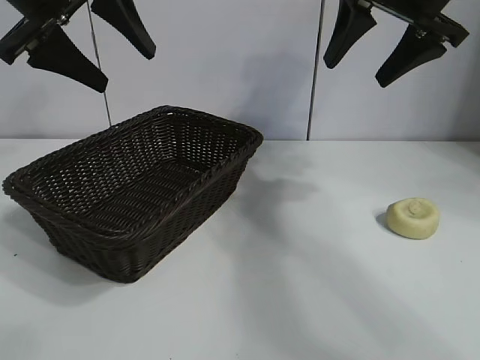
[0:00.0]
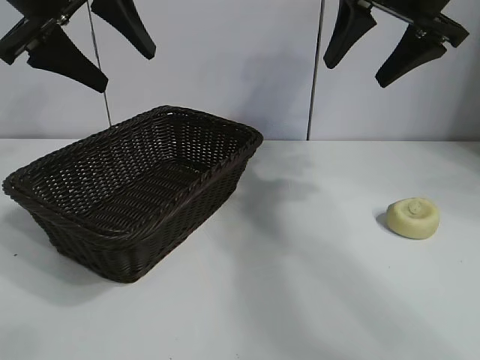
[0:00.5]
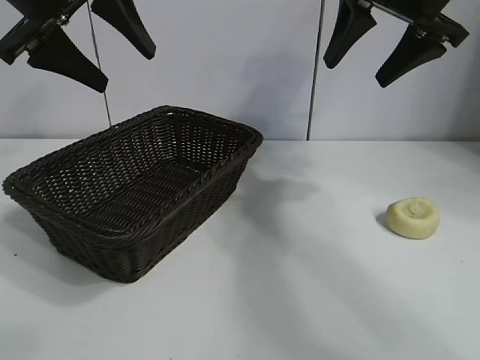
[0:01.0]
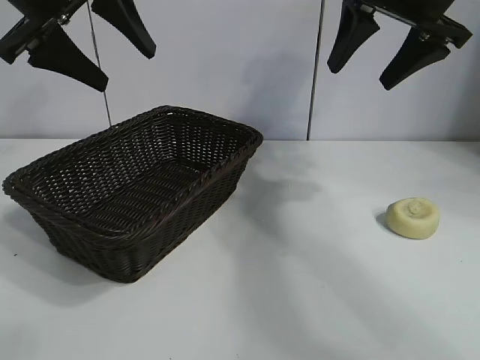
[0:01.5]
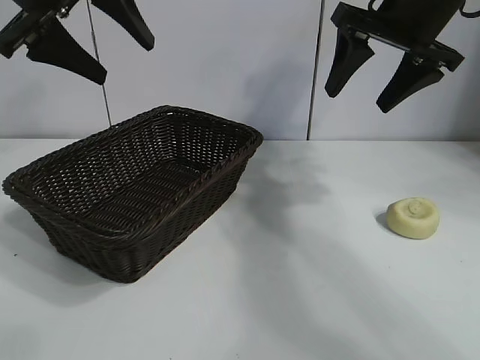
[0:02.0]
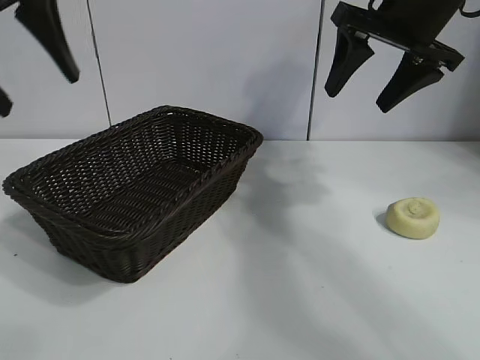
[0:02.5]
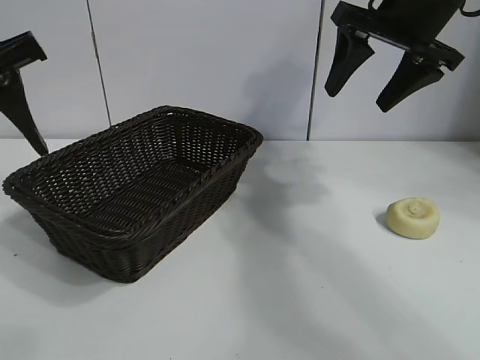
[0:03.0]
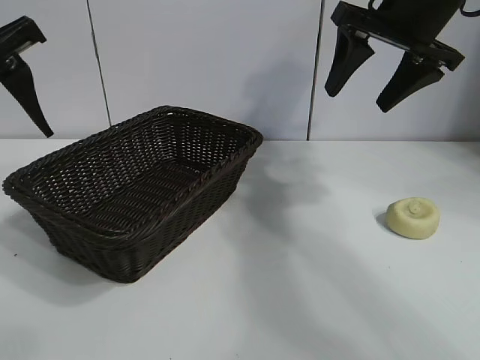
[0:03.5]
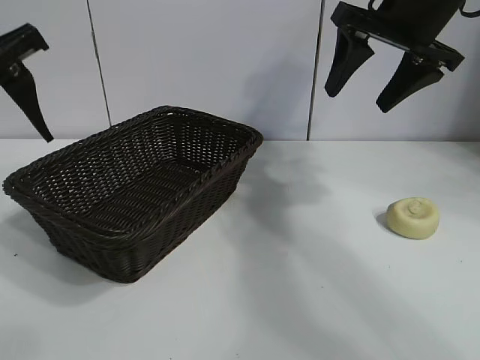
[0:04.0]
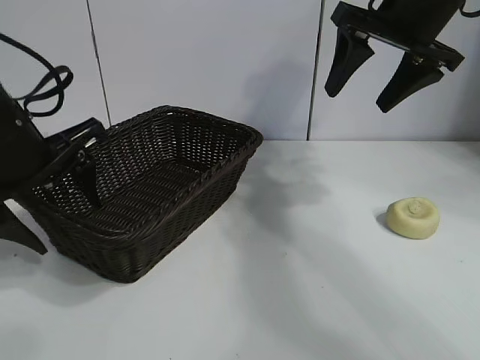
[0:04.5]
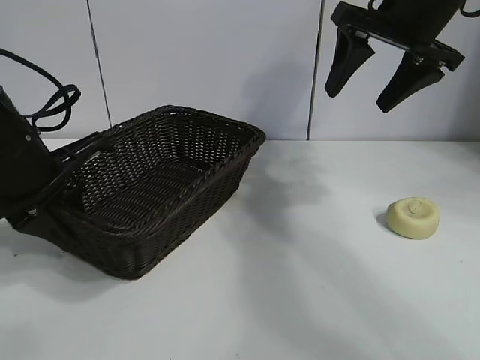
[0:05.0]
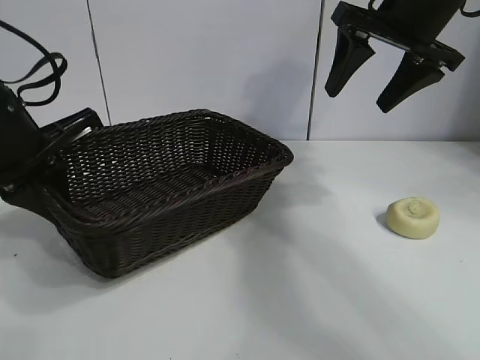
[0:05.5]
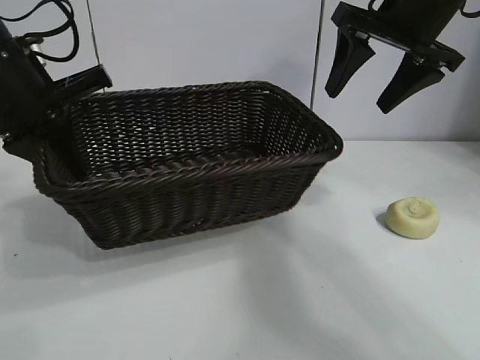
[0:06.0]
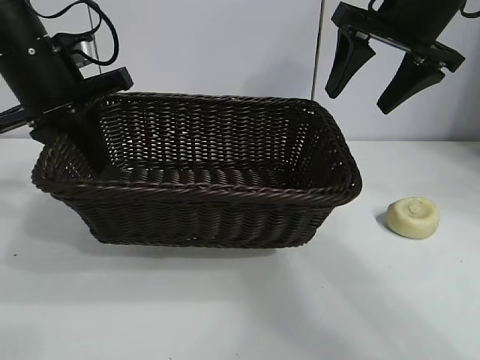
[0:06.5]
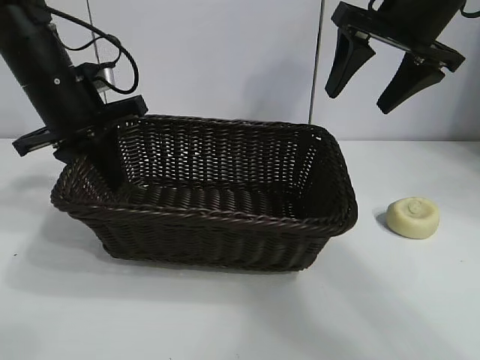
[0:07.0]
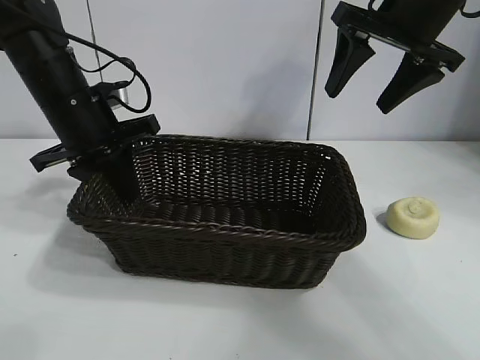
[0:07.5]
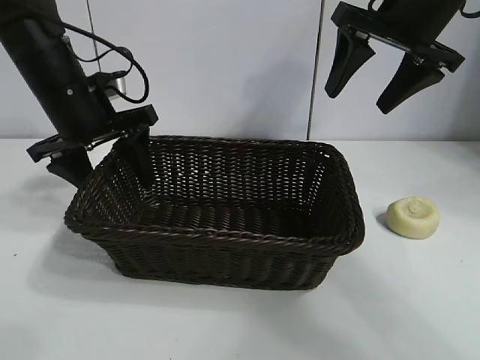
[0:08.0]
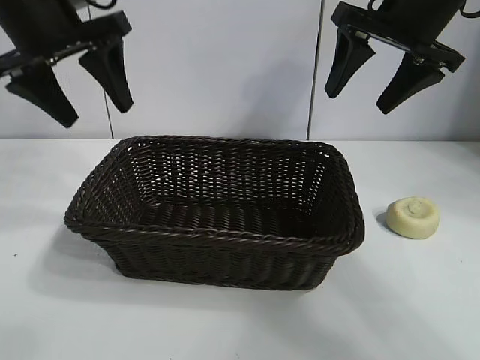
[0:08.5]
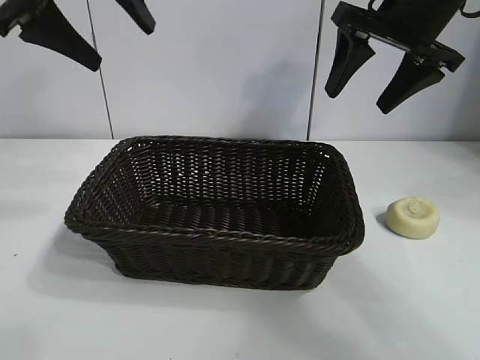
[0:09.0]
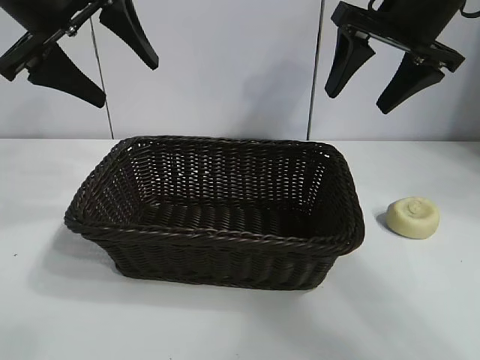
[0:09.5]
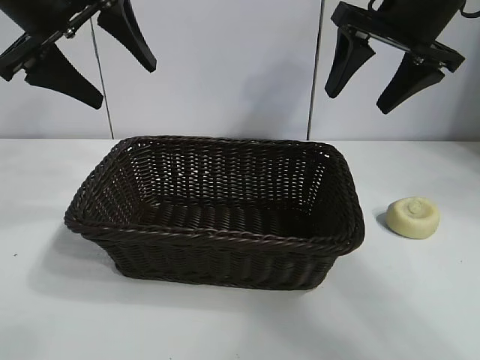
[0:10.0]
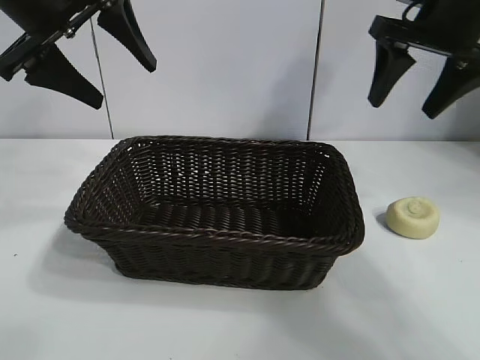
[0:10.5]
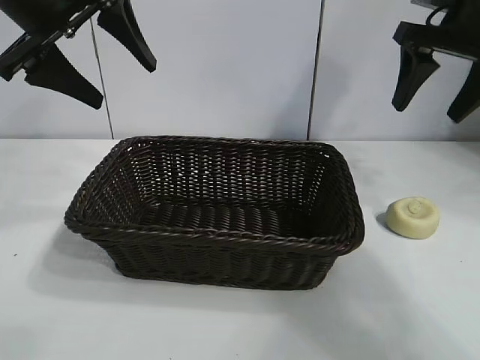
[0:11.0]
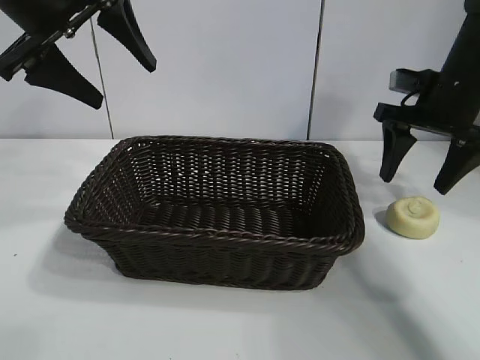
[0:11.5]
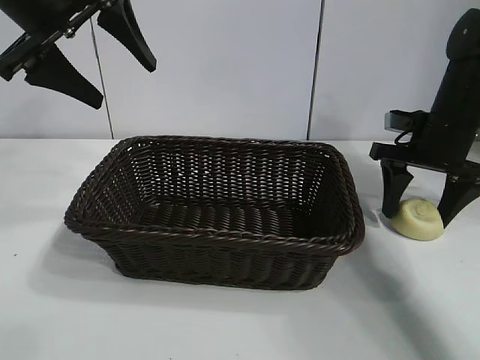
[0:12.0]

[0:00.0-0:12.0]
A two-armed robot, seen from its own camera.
Task of the whole recording: pick up the egg yolk pastry and put it into the basket.
Step, 0:01.5 to 0:04.5: Grasp the basket with left gripper.
Step, 0:05.5 to 0:07.5: Place the basket in the center of view with left gripper.

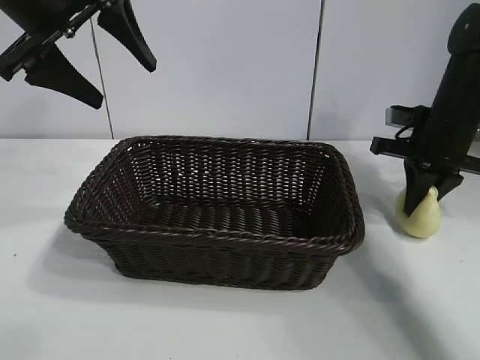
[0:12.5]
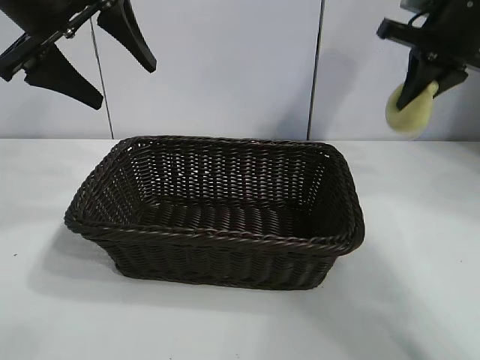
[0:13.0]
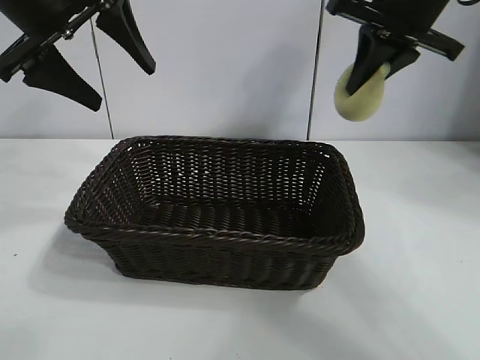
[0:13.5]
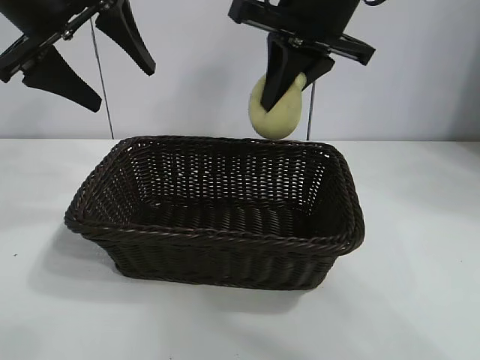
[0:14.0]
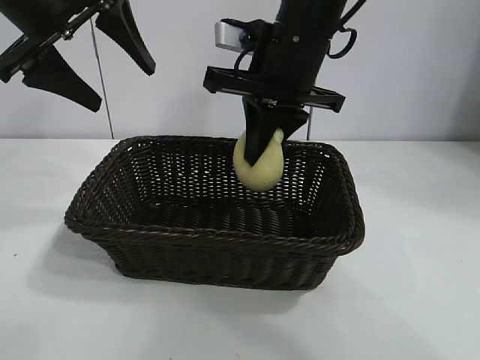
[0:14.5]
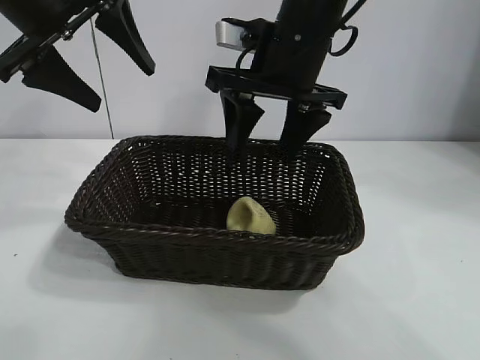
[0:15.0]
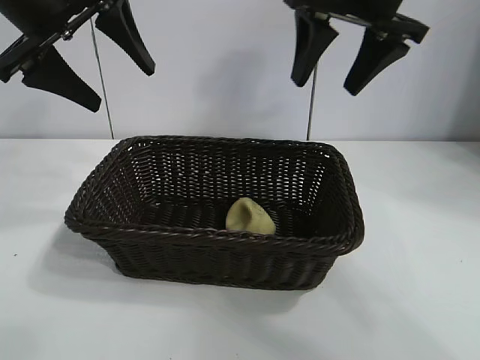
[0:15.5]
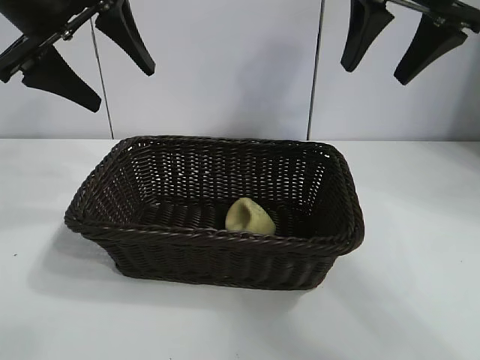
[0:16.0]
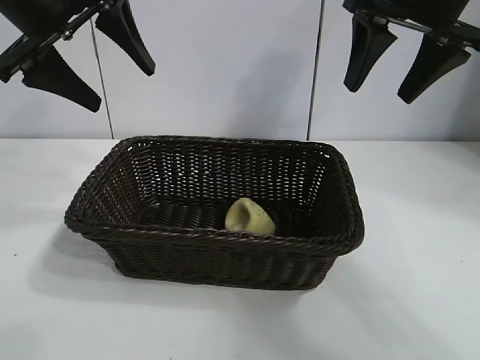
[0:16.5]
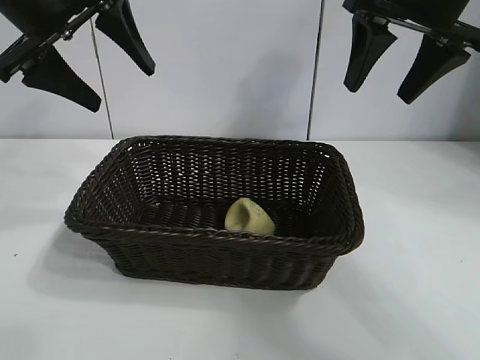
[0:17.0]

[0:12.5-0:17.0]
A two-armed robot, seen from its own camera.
Task of the whole recording: pick up the egg yolk pastry and put it into the basket.
Step, 0:12.5 to 0:15.0: Place the egg yolk pastry in the basket with right gripper.

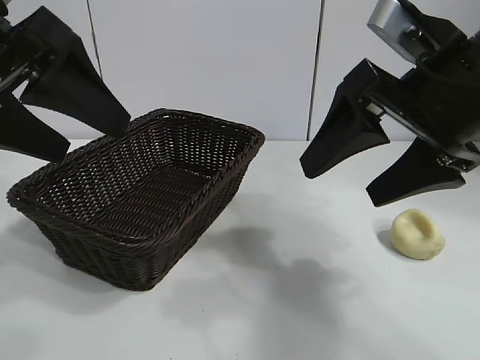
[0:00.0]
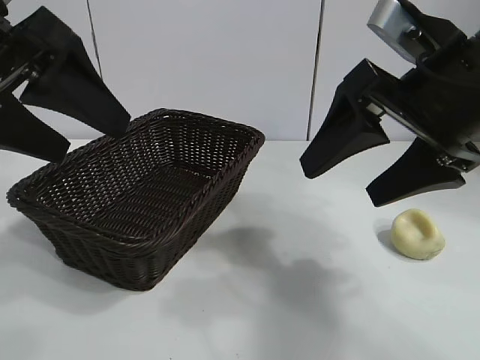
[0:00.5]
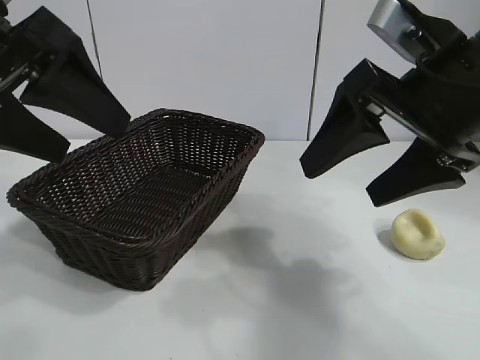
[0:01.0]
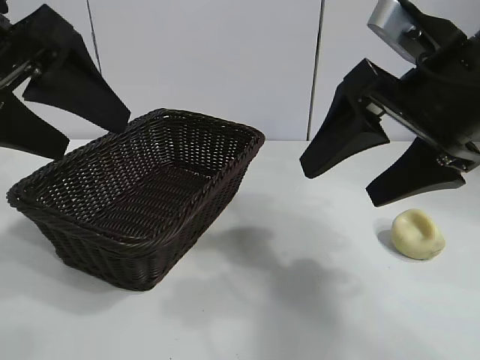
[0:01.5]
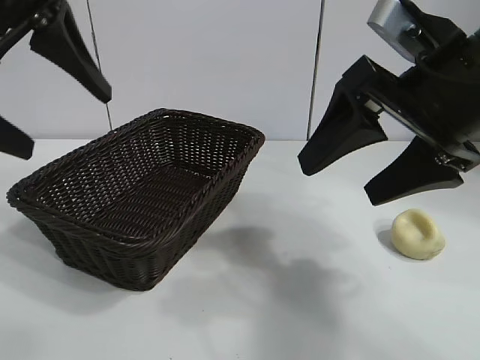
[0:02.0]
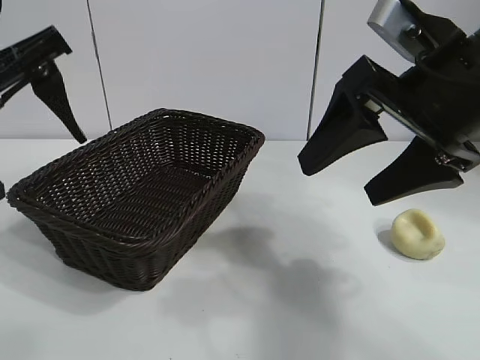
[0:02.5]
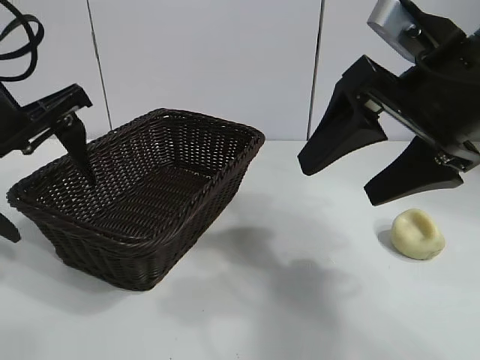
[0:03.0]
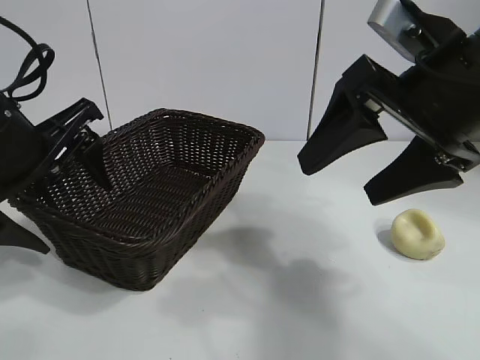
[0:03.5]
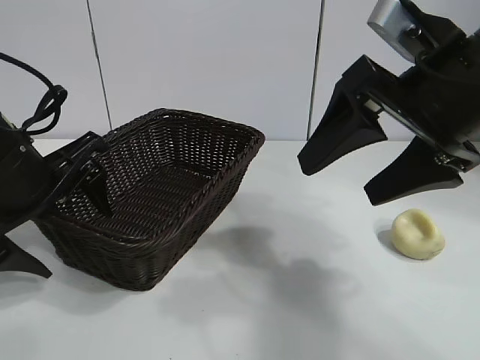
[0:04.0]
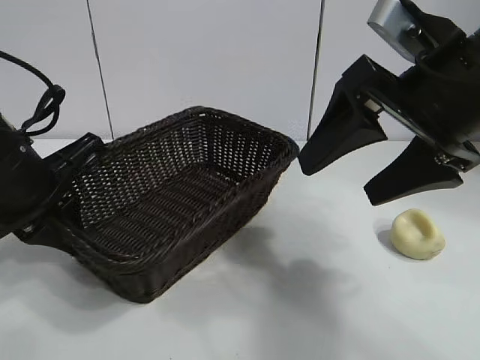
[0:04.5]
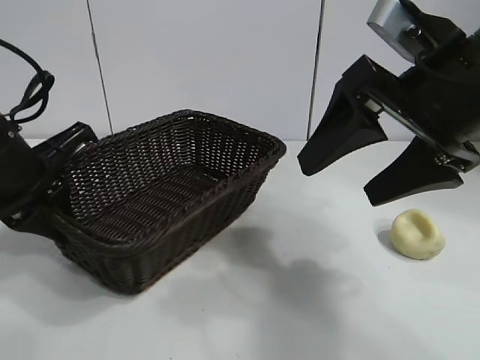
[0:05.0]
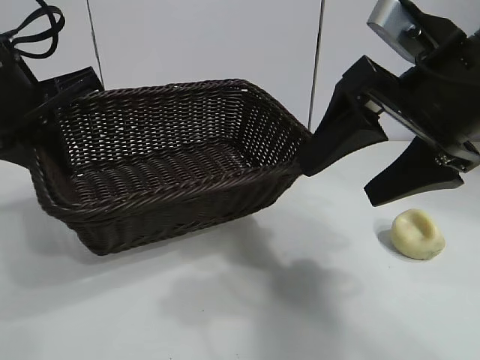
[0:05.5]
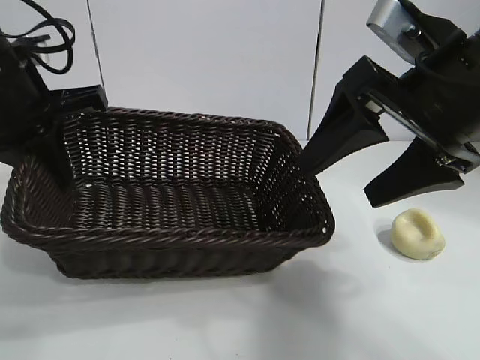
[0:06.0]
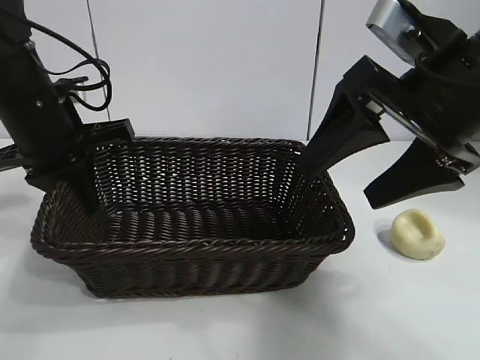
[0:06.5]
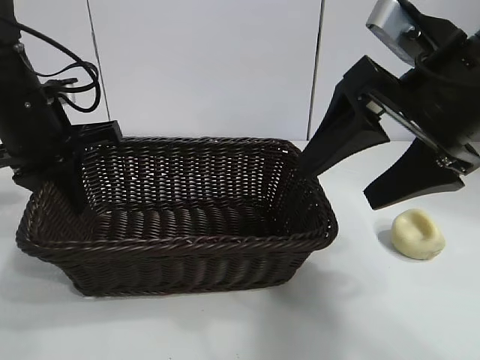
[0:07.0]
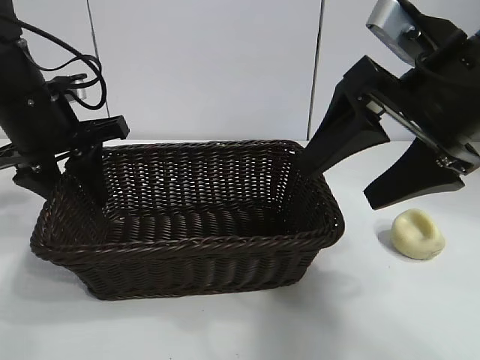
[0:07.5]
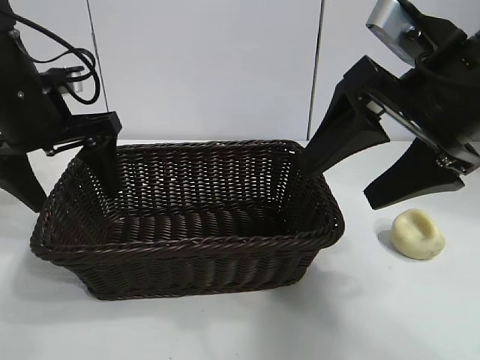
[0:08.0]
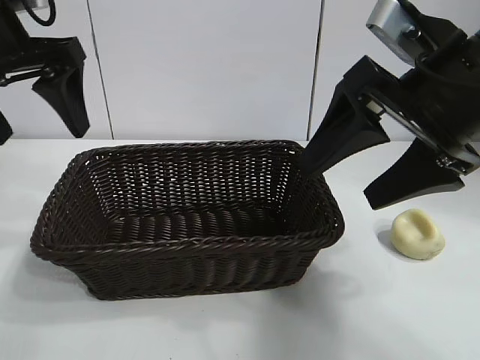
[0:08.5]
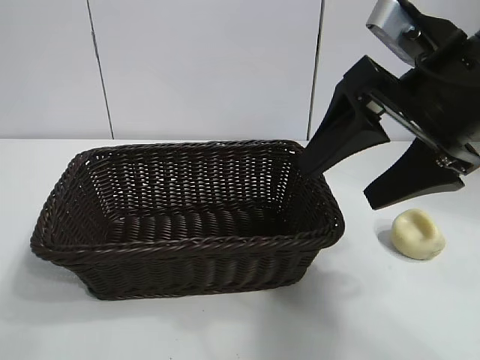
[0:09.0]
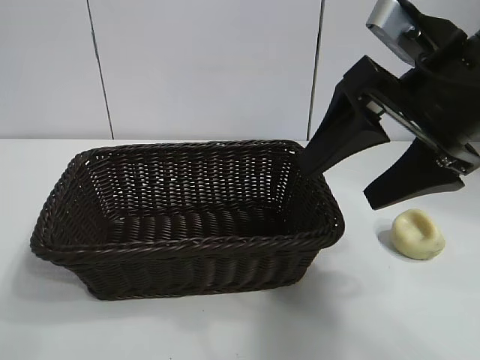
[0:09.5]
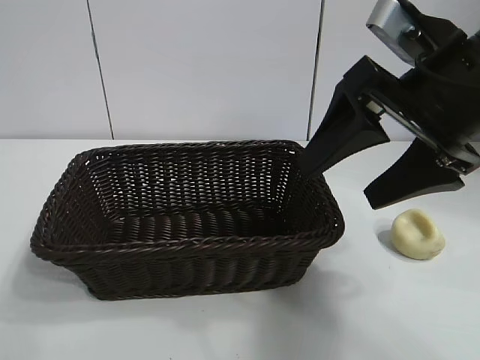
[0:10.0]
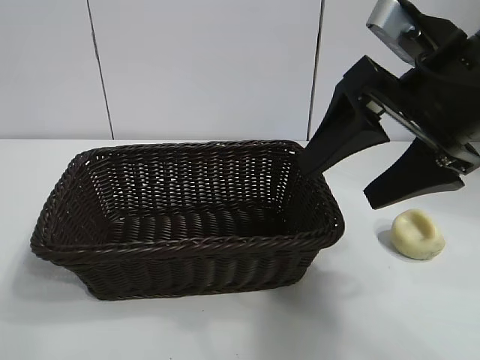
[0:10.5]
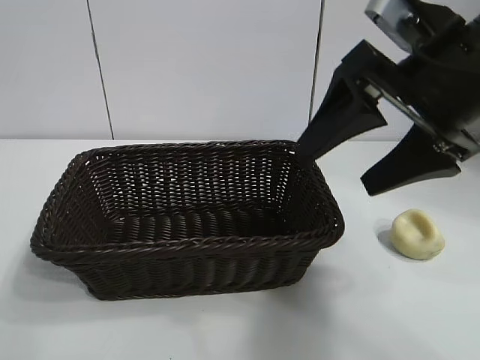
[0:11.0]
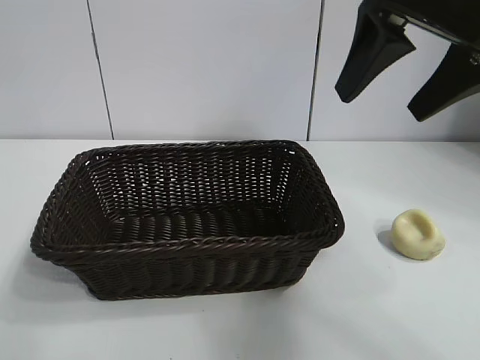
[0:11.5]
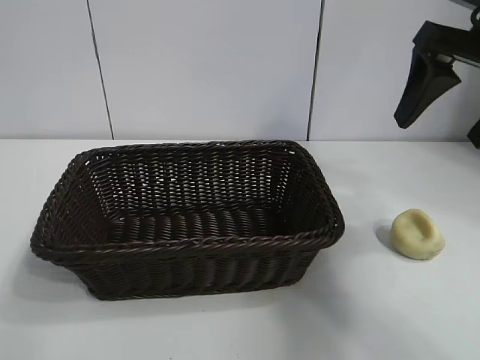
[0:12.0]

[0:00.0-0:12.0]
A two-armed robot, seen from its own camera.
Task of the whole recording: pick up the egg yolk pastry and put it into the basket.
Step, 0:01.5 to 0:04.0: Grasp the basket with left gripper.
Step, 0:05.0 to 0:07.5: Place the basket in the center of view with left gripper.
